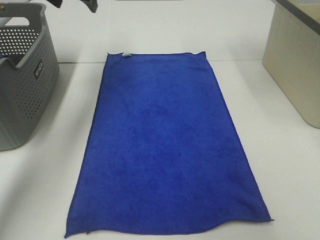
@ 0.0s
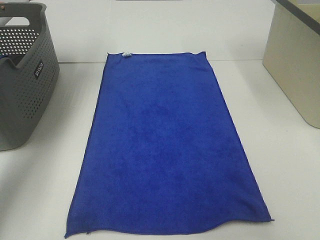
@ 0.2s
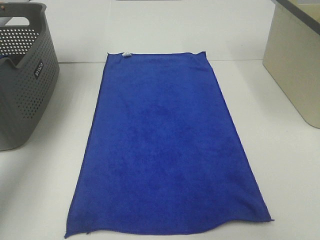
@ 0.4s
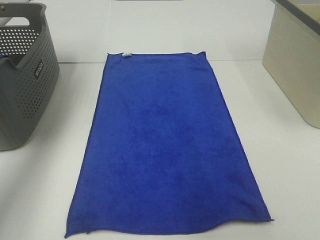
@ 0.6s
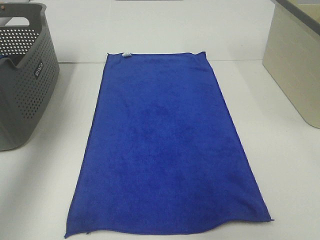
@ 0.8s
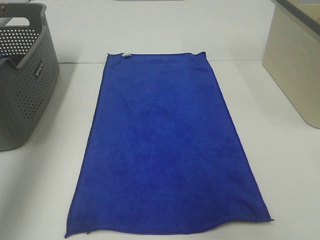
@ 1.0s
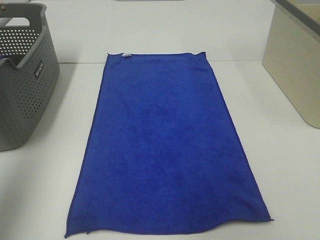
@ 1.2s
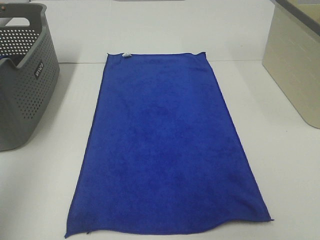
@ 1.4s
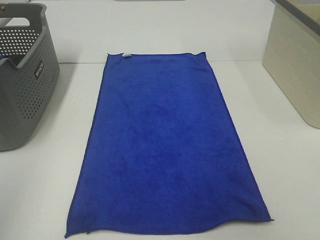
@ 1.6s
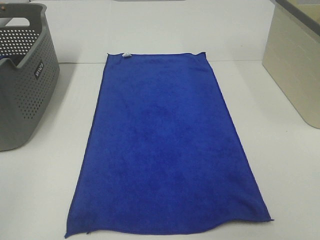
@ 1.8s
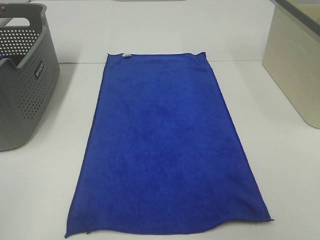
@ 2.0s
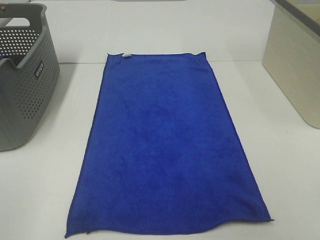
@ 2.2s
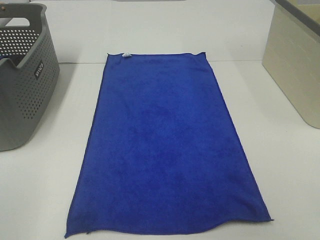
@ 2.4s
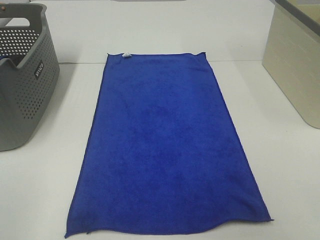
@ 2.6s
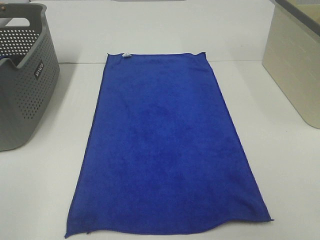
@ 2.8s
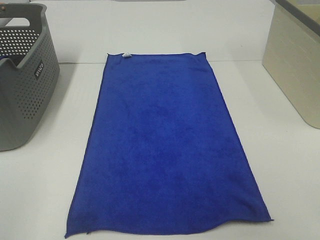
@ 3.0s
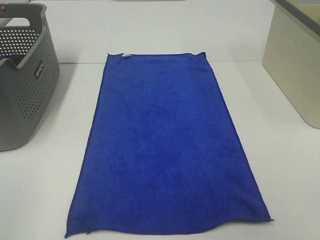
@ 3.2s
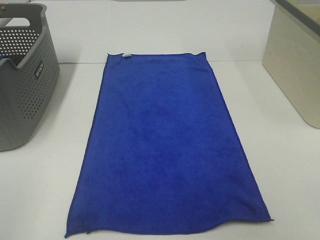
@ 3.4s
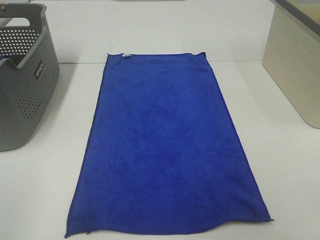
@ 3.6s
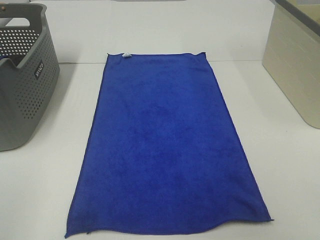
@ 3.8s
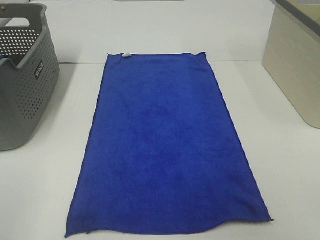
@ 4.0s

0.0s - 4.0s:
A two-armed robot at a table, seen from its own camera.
Task of the whole recording: Remove the towel and place it.
0.0s - 1.4s: The left gripper is displaced backward by some 40 cm.
1.4s - 2.6s: The left gripper travels downward and backward by some 15 cm.
2.6s - 4.0s: The two grippers keep their place.

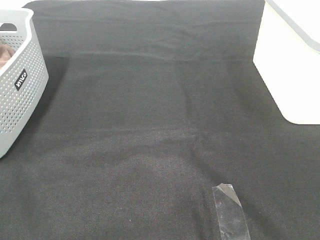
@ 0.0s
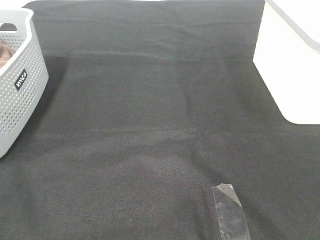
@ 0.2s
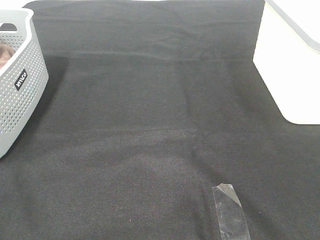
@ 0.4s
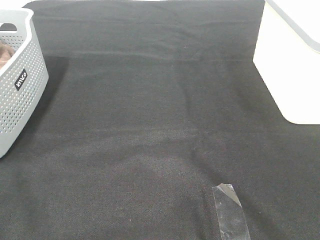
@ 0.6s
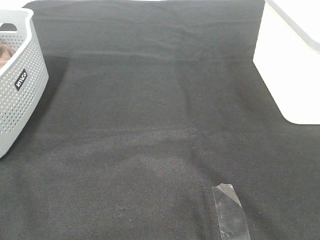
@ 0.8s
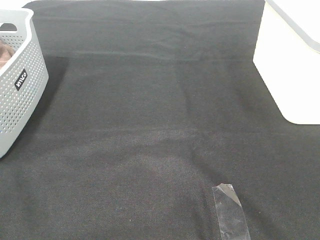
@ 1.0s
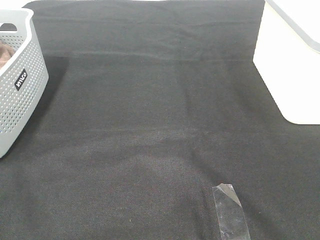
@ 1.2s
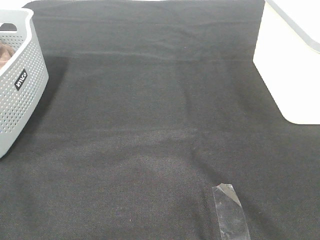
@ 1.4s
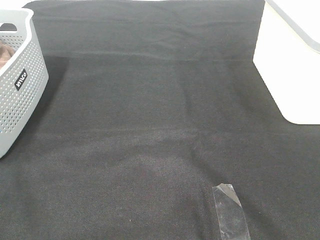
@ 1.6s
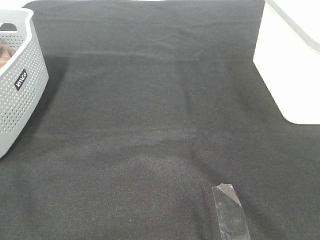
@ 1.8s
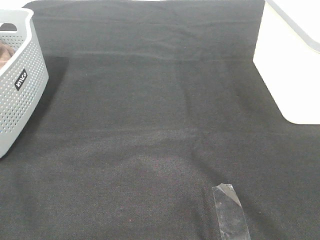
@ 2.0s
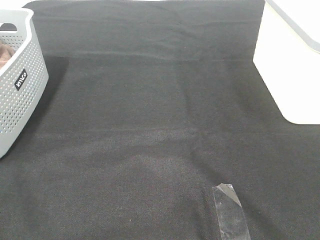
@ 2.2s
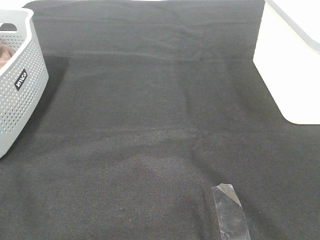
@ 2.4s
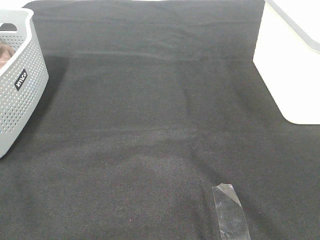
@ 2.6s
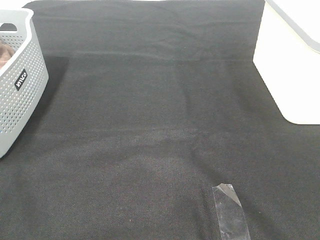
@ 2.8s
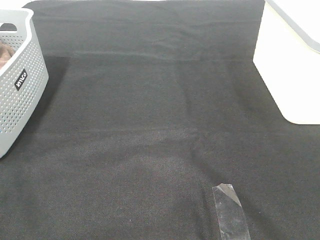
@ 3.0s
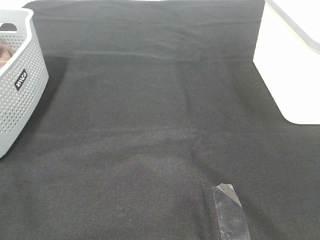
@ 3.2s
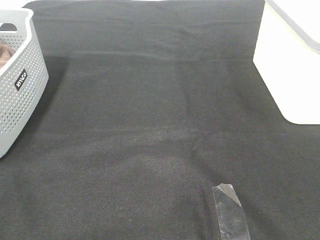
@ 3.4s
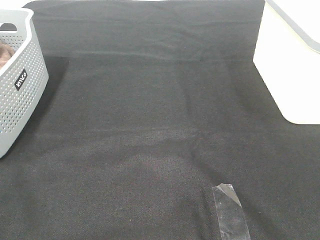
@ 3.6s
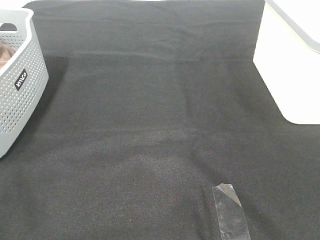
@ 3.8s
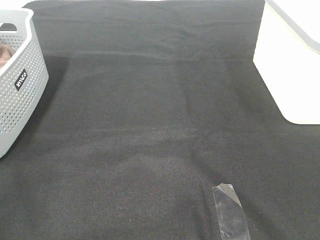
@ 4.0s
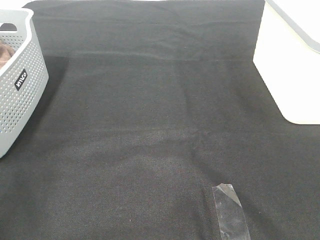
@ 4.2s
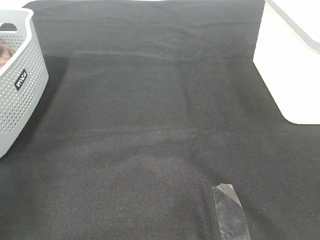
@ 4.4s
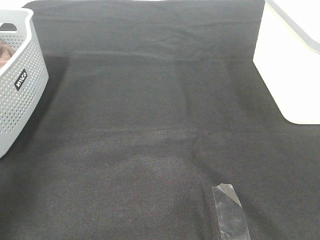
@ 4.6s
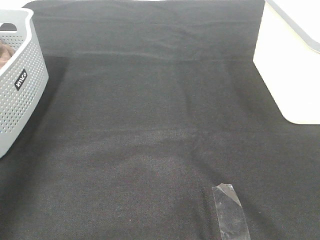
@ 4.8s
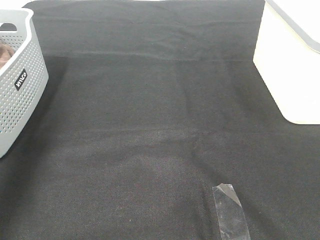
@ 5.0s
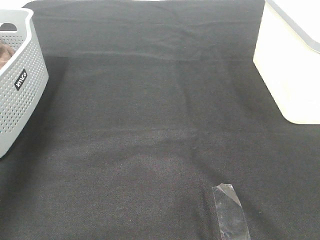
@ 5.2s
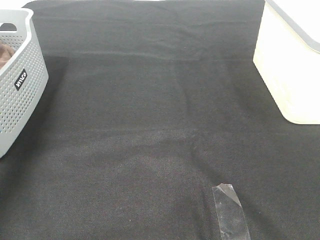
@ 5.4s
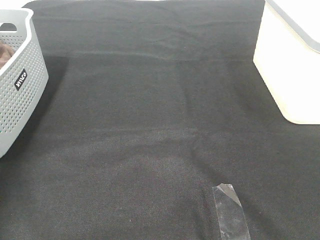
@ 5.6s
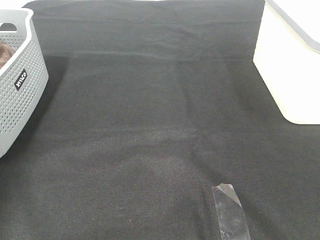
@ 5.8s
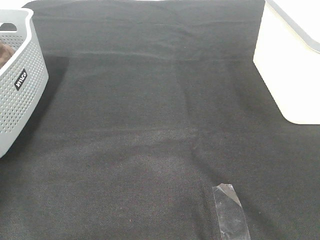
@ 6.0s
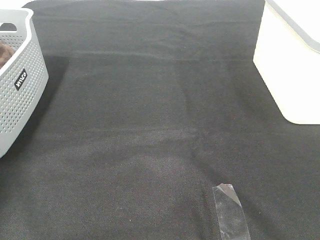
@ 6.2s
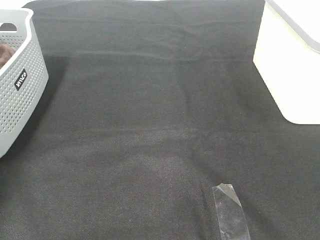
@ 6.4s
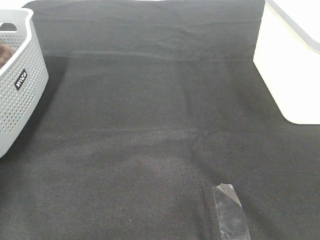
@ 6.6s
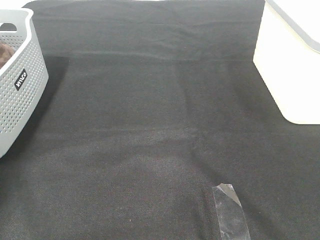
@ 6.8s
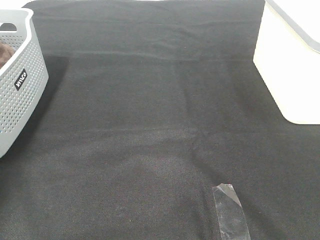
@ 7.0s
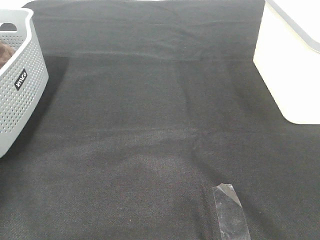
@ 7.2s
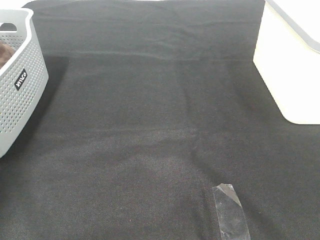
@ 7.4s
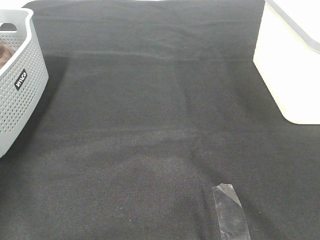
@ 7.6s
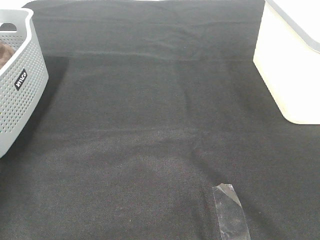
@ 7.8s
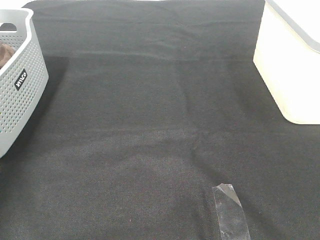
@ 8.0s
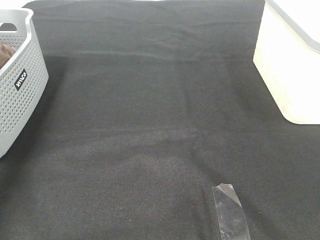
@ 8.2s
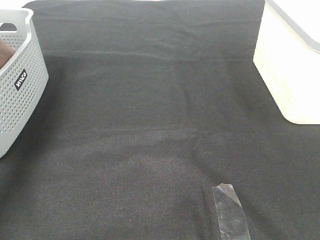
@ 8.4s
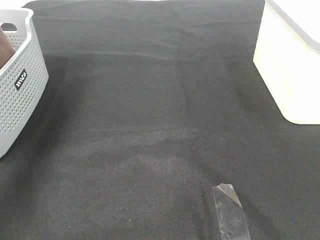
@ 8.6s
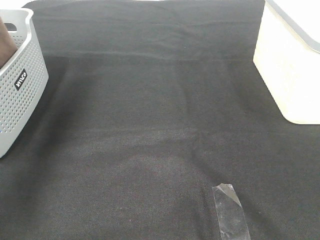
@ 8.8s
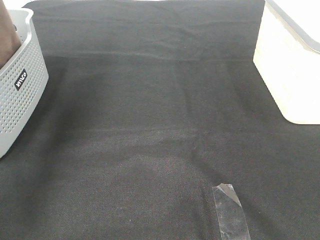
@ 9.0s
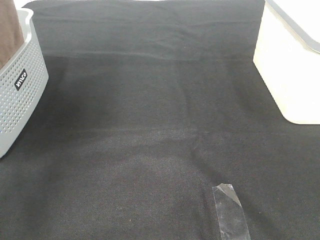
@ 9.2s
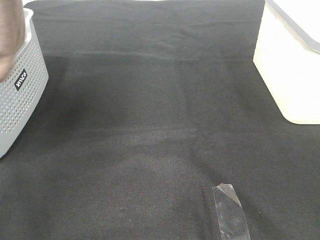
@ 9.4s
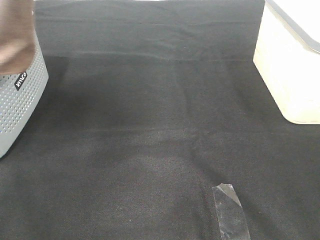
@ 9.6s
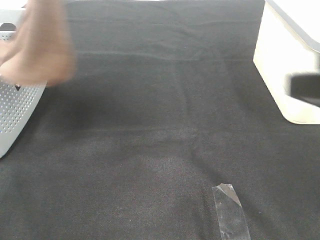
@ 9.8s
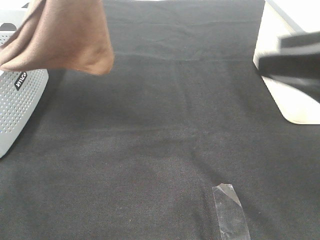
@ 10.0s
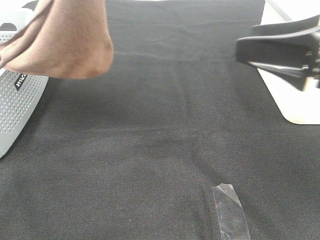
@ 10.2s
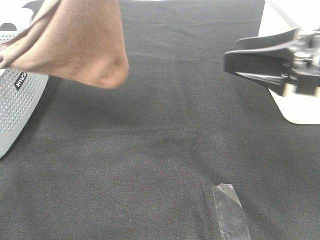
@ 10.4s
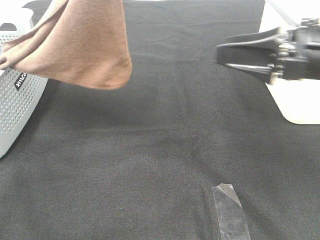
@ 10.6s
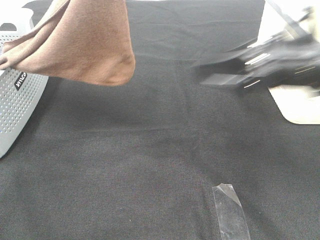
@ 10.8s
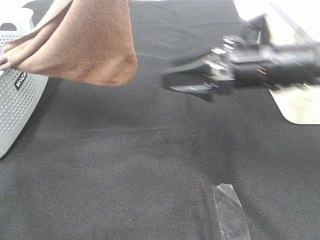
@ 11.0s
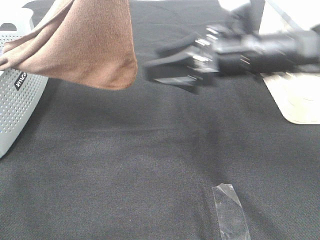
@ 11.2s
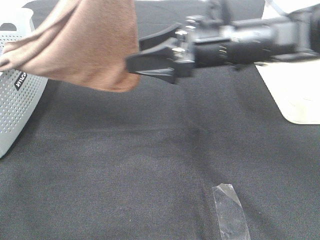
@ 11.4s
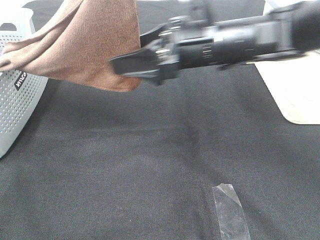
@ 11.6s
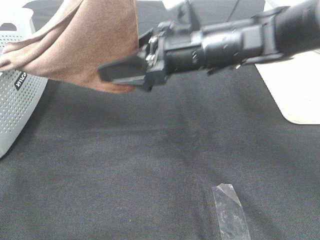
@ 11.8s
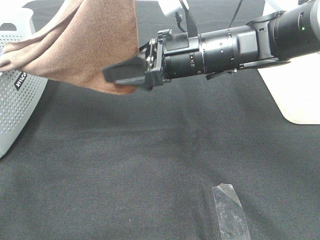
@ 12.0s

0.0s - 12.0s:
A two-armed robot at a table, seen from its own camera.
Task of the whole recording: Remove the towel and place it.
0.0s - 3.0s: Both grippers stay about where they are.
4.4s - 6.0s: The left gripper travels forward and downward by some 35 cm.
7.6s - 9.0s: The left gripper goes roughly 20 cm upward, to the right and backward.
9.0s - 10.4s: The right gripper shifts approximately 25 cm forward; the left gripper moves to the right and backward, roughly 20 cm.
10.4s - 12.0s: The right gripper shifts roughly 20 cm to the left and forward.

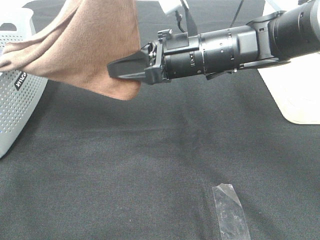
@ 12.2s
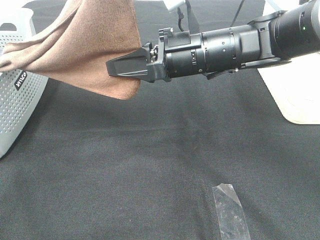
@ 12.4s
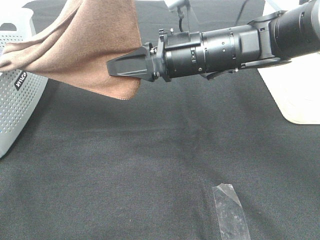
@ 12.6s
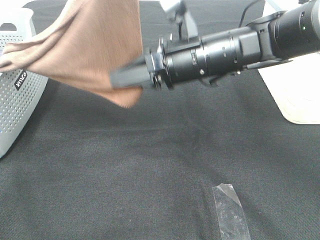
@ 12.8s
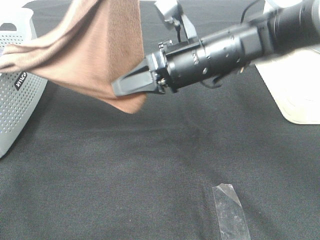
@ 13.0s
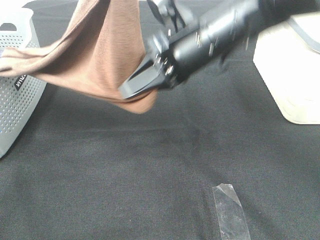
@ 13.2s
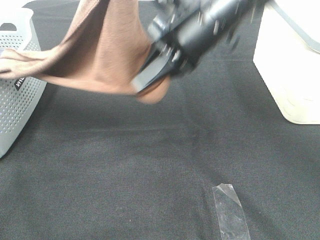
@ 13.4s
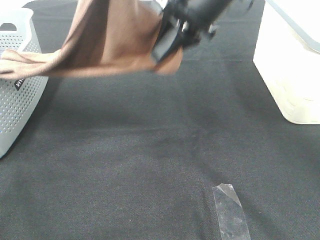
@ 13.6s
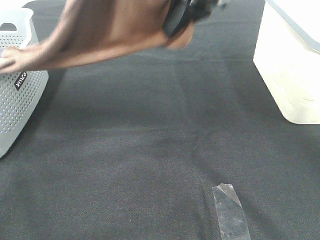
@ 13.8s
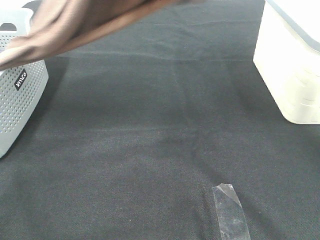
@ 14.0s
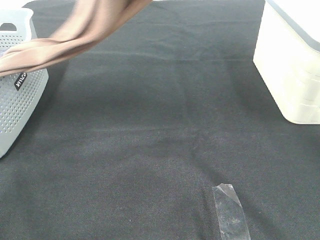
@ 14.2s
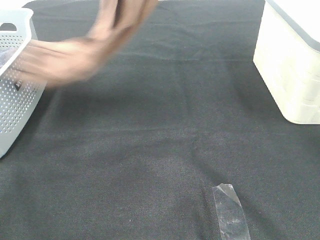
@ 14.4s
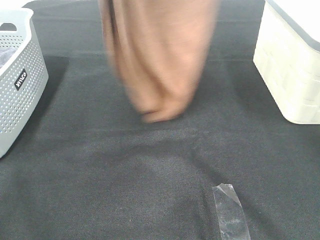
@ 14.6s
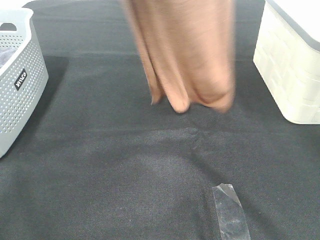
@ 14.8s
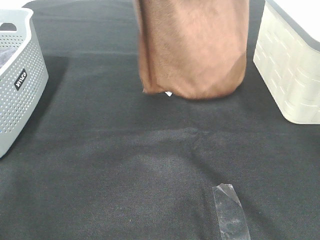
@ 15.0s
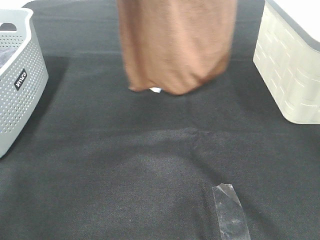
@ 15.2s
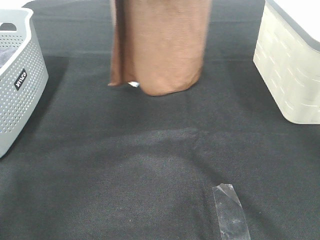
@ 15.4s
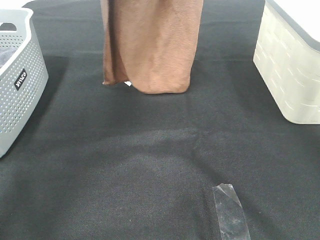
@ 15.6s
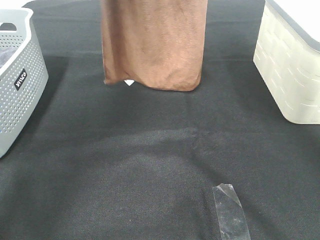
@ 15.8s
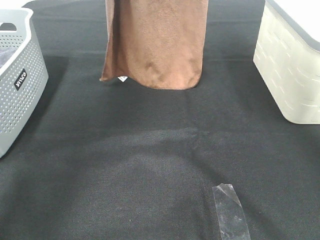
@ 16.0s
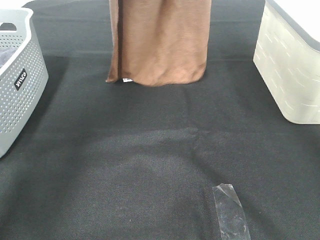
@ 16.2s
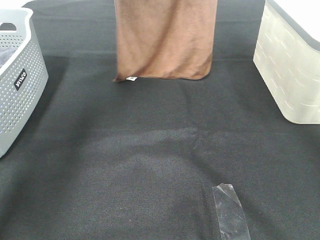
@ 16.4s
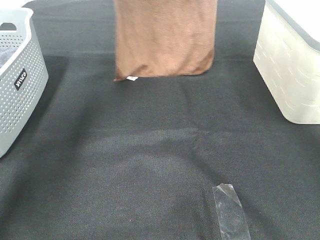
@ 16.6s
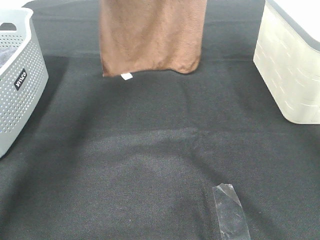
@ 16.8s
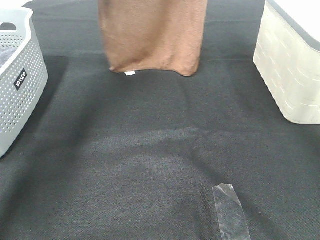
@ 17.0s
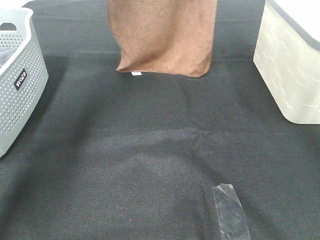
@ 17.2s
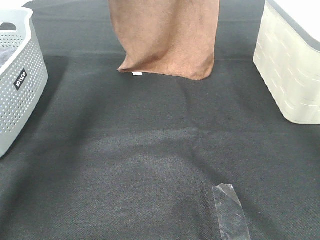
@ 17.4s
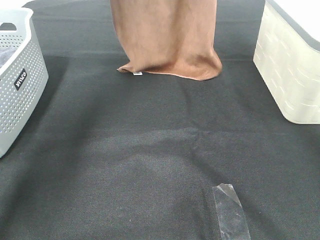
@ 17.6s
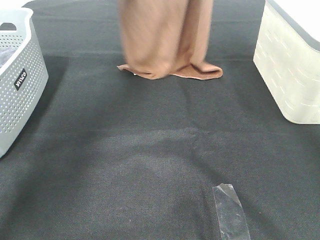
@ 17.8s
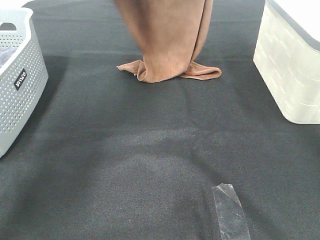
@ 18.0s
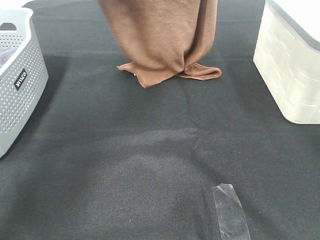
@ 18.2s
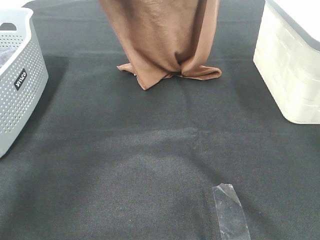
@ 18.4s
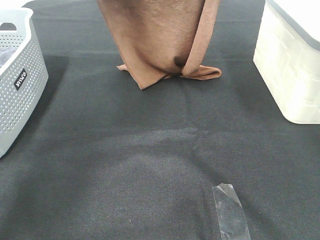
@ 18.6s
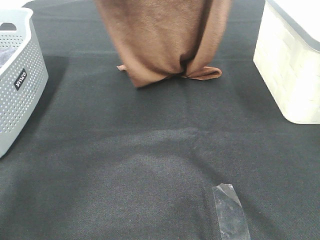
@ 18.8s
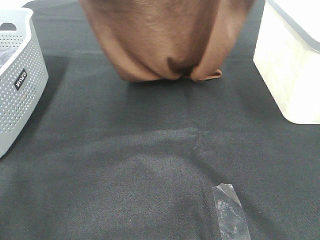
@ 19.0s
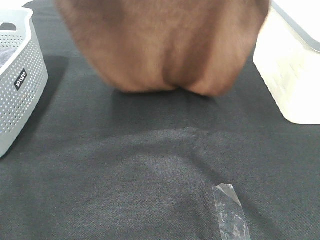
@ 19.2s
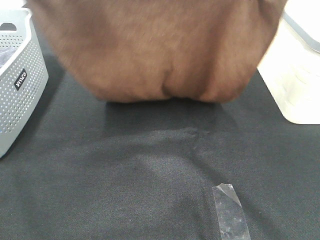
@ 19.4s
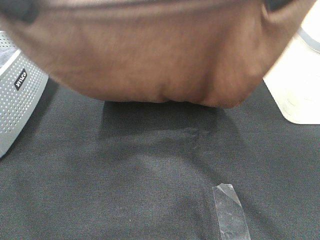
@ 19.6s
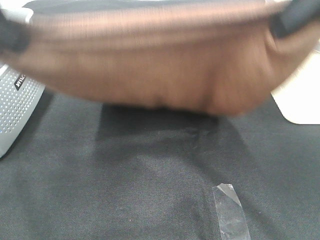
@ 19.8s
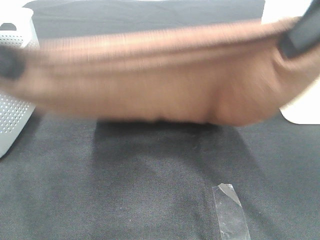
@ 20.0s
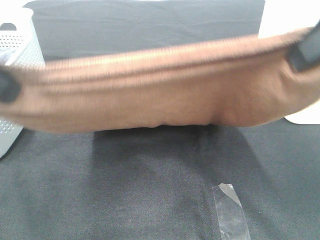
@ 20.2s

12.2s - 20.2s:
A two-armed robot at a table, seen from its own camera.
Task of the whole recording: Remove the towel and place it.
Step, 13.0s - 19.4s: Left hand: spread the brown towel flat on the table.
Step, 13.0s - 19.4s: Right hand: spread the brown towel flat on the table.
12.2s - 13.8s: The right gripper moves upward, roughly 15 cm.
13.8s - 15.4s: The right gripper goes roughly 15 cm upward, while the left gripper goes about 15 cm forward and to the left.
15.4s - 17.0s: The left gripper goes some 10 cm forward and downward. The right gripper moves forward, some 10 cm.
17.0s - 18.6s: Both grippers move backward, roughly 5 cm.
18.6s - 20.2s: Both grippers move backward, about 25 cm.
